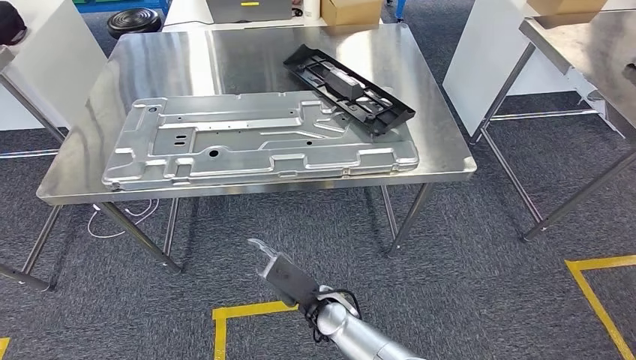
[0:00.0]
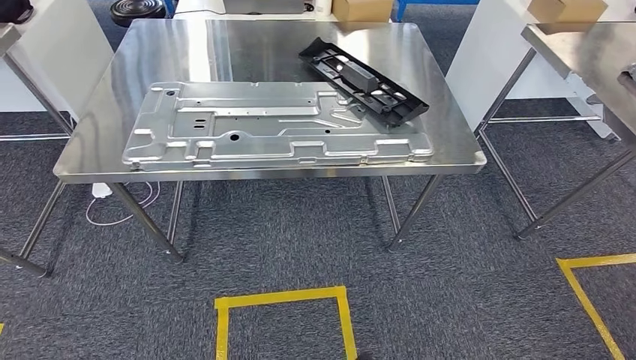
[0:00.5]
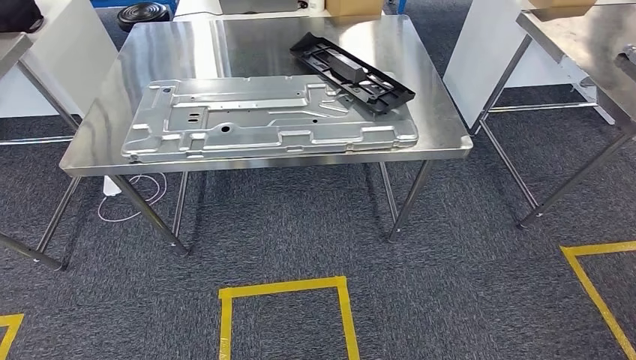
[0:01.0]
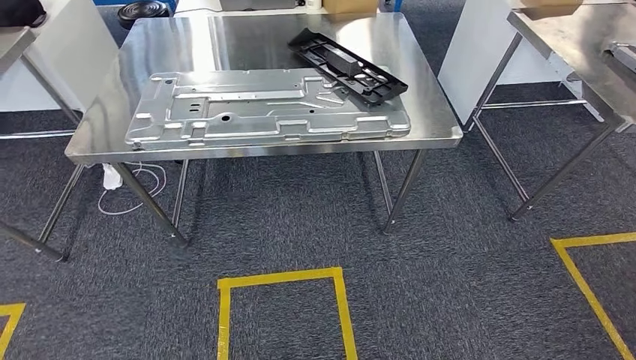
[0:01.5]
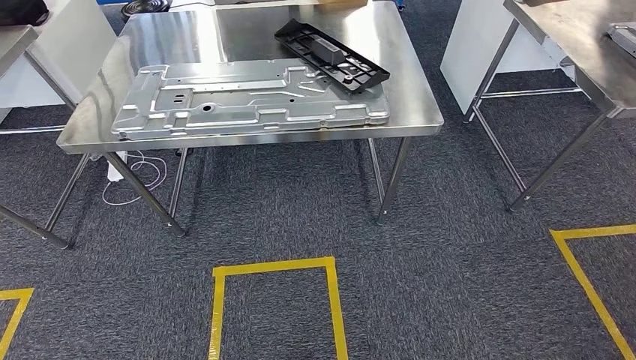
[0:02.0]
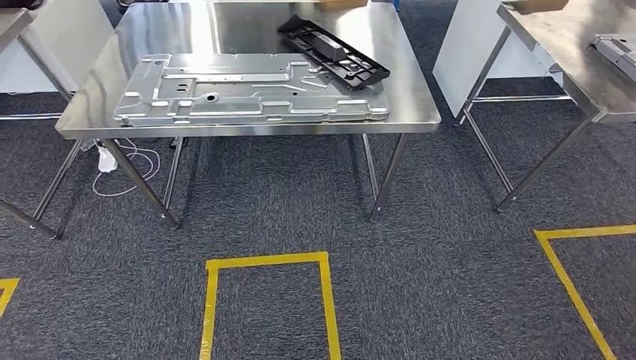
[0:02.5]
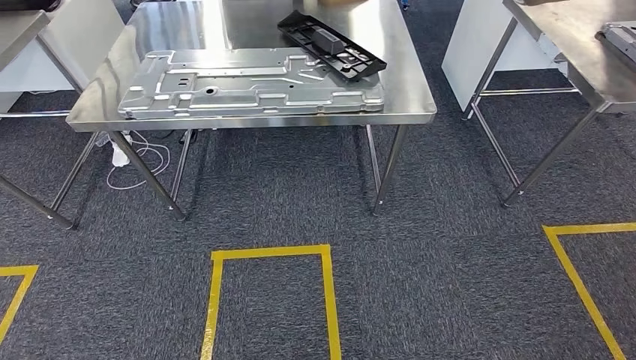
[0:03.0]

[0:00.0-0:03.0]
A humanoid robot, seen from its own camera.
Step, 0:00.0 to 0:03.0: Move to the initial position of the shelf.

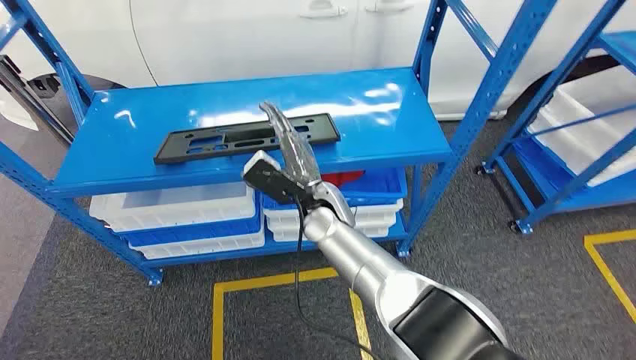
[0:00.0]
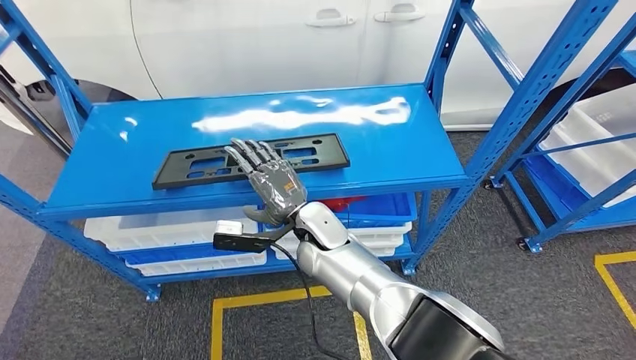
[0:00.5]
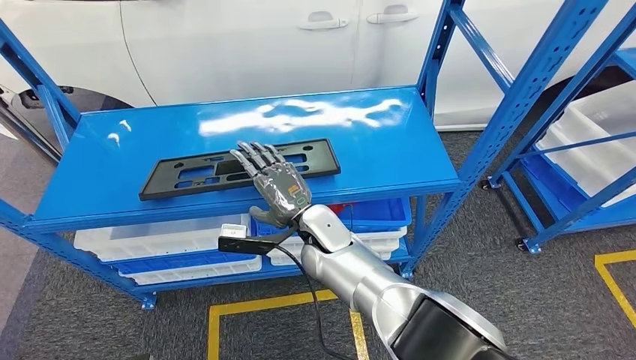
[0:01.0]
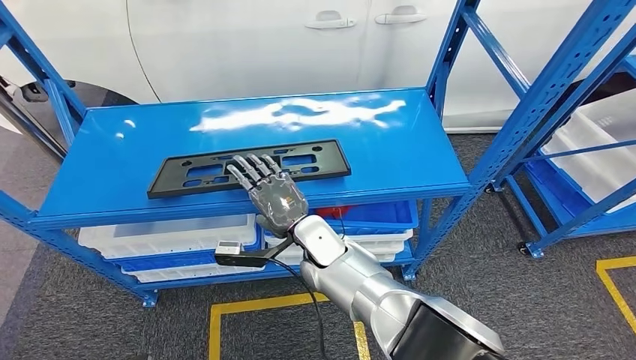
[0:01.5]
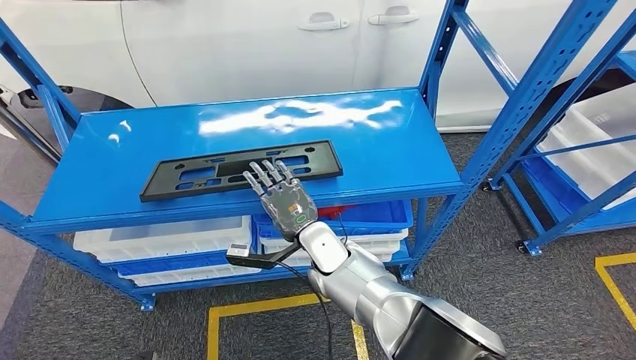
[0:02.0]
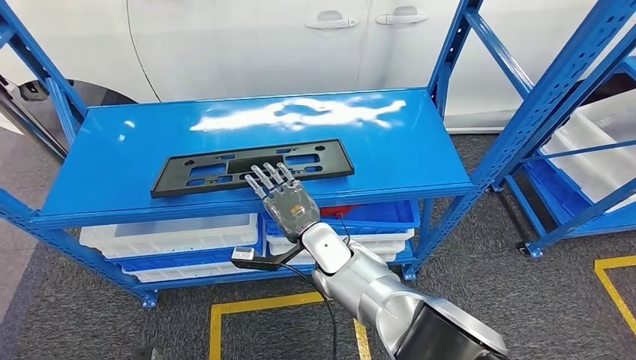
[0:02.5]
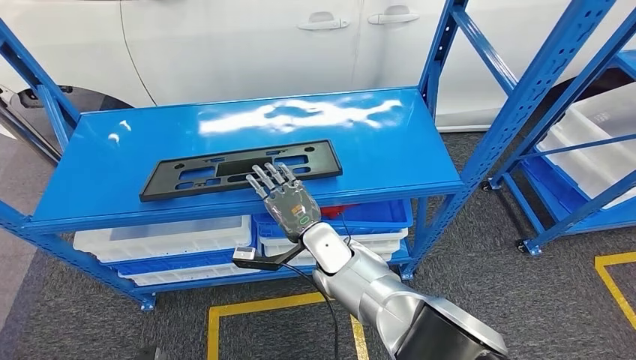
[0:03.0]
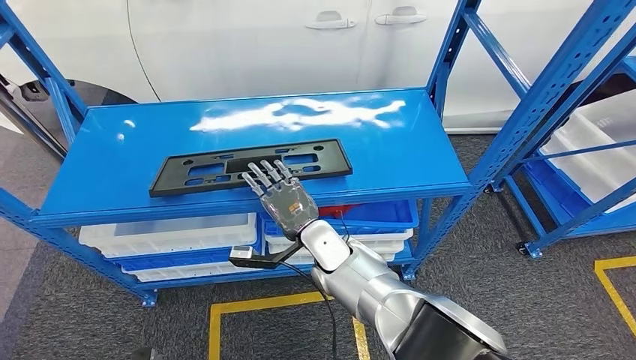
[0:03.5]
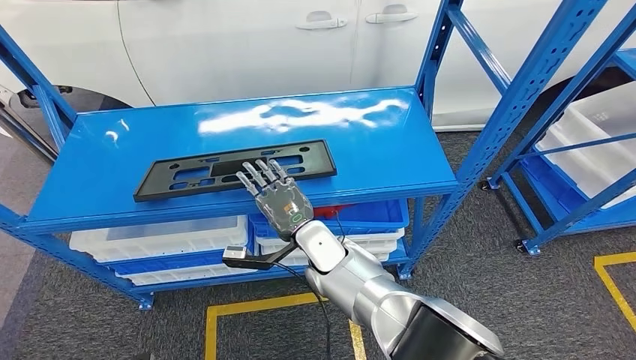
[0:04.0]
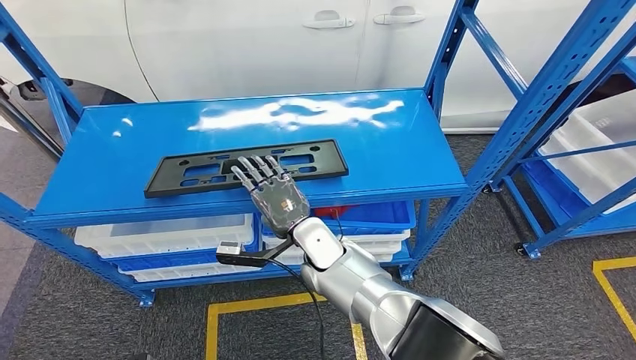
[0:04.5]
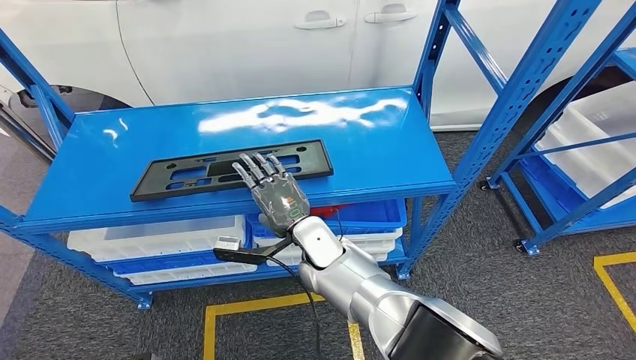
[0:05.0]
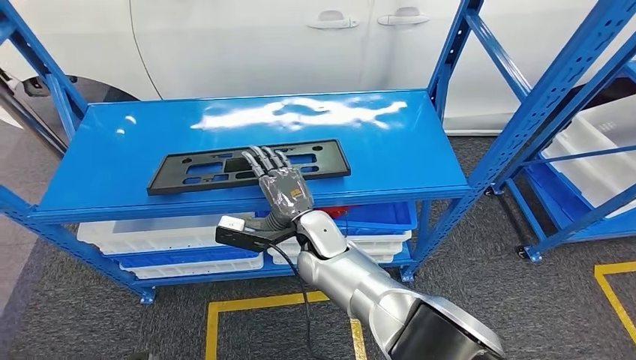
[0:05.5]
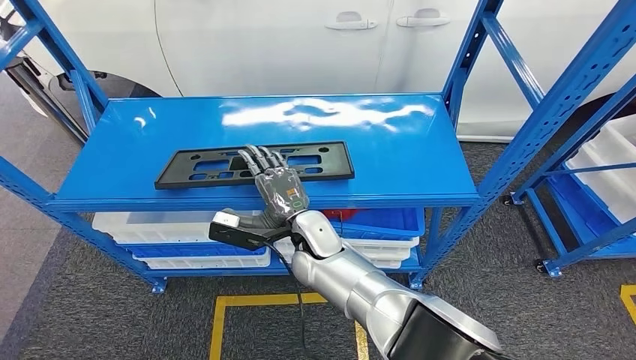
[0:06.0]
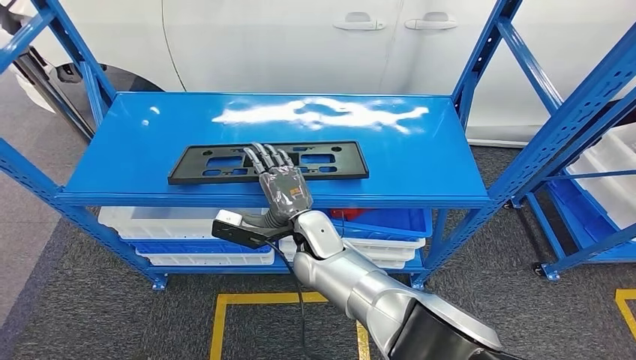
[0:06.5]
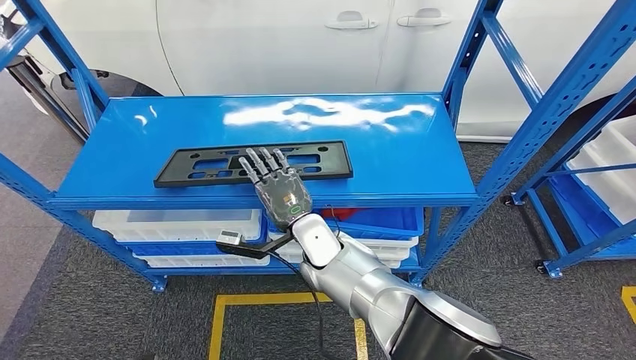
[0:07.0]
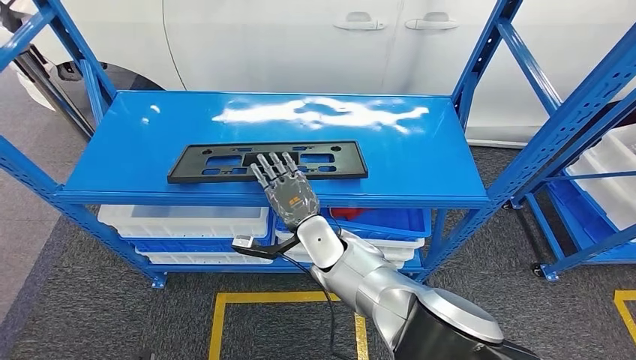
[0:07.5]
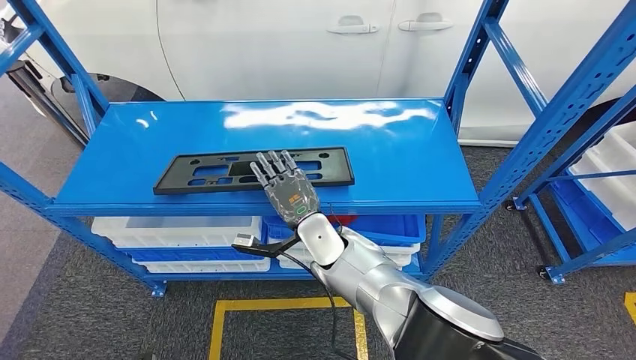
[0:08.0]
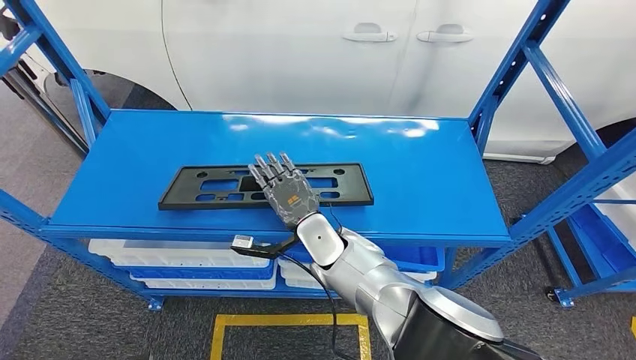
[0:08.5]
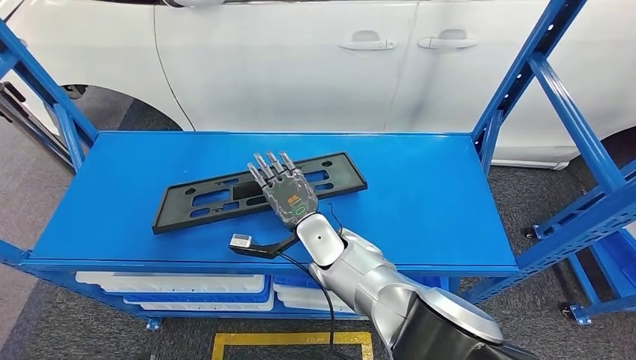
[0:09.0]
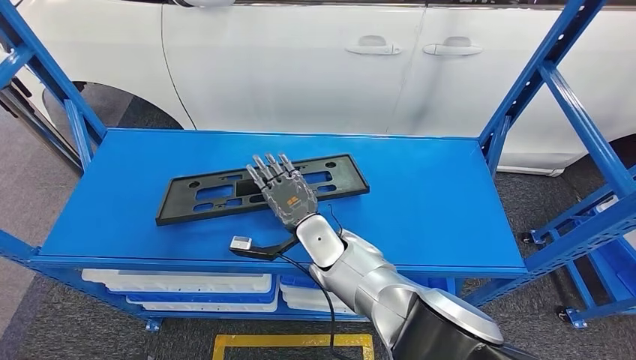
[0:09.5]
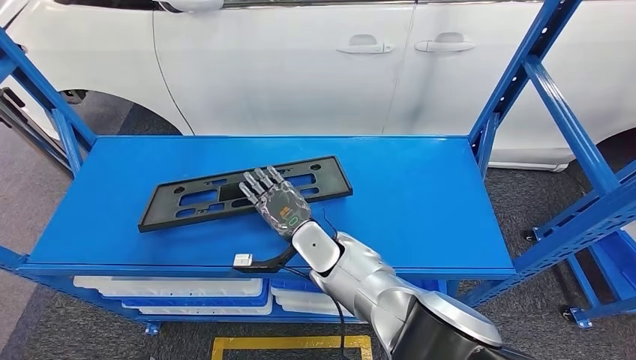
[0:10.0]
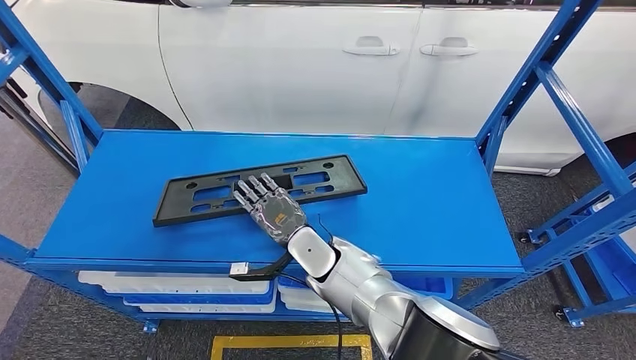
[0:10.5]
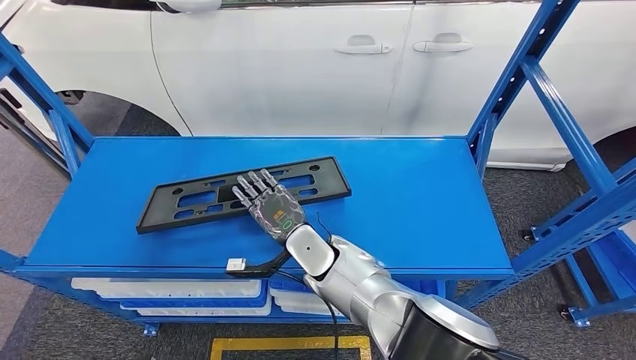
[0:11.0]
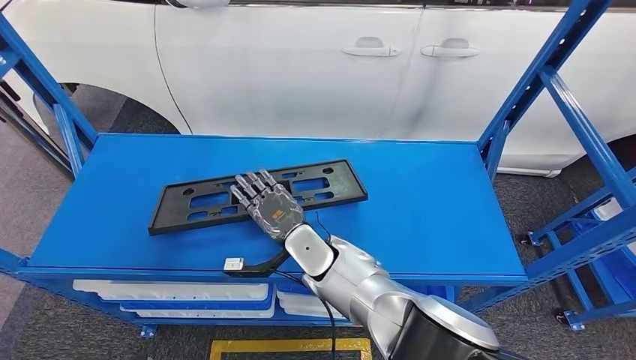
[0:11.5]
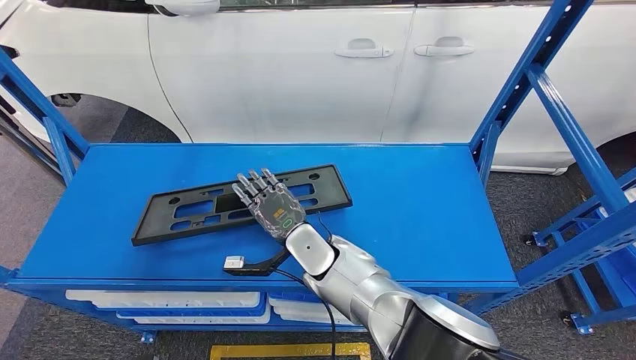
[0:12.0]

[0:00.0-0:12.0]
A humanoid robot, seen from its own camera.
0:02.0 to 0:04.0: Both hands stay put.

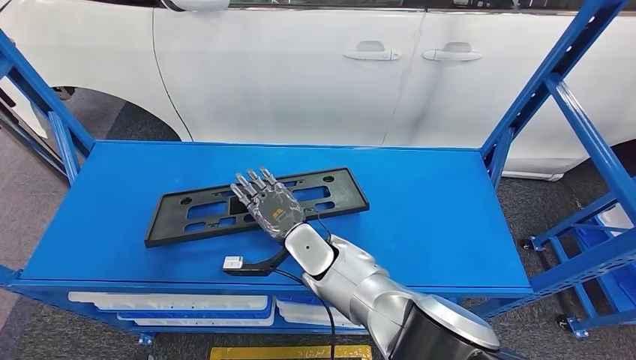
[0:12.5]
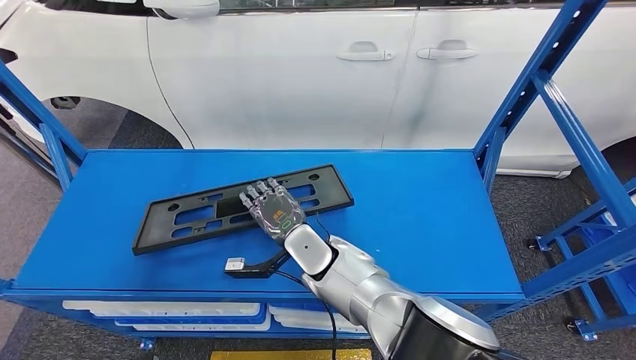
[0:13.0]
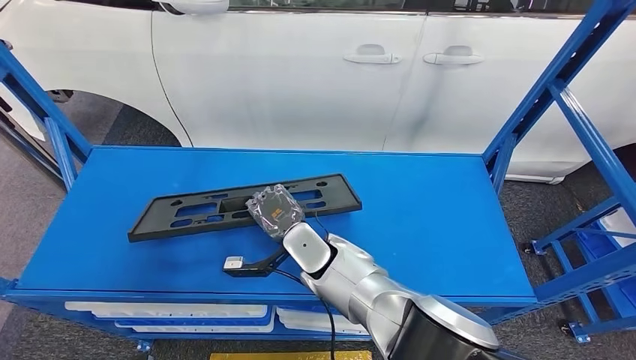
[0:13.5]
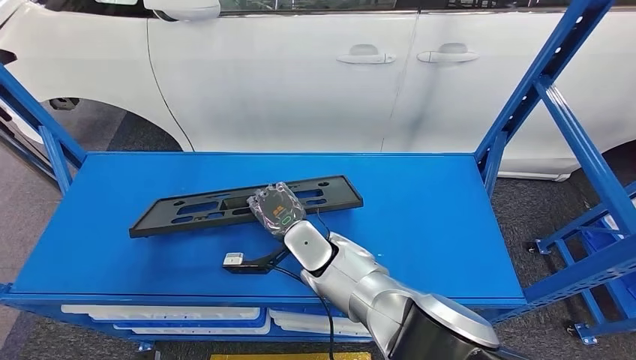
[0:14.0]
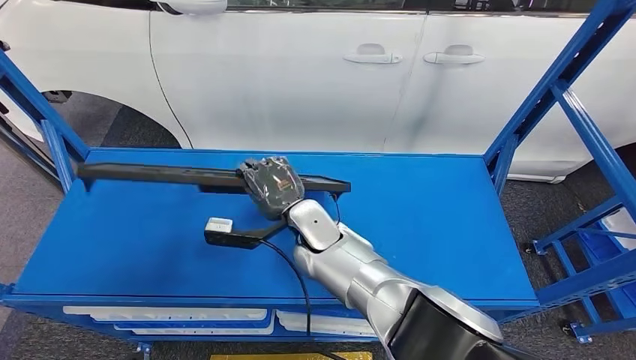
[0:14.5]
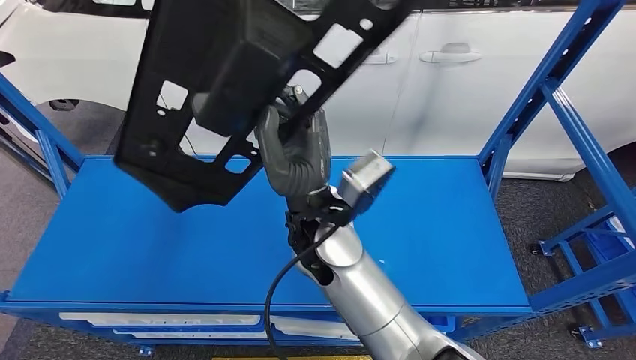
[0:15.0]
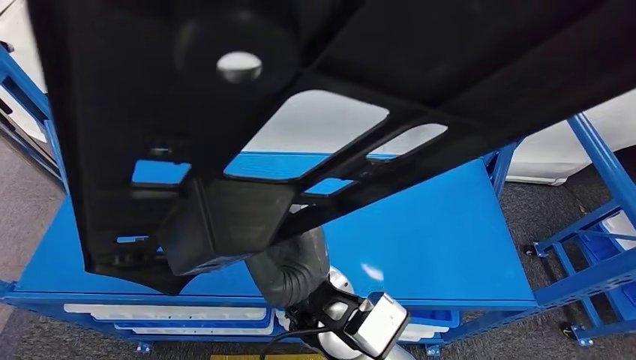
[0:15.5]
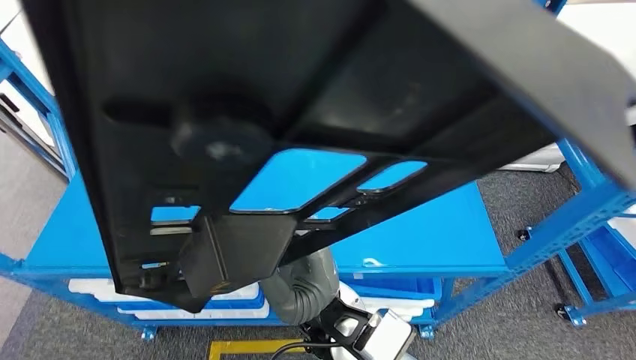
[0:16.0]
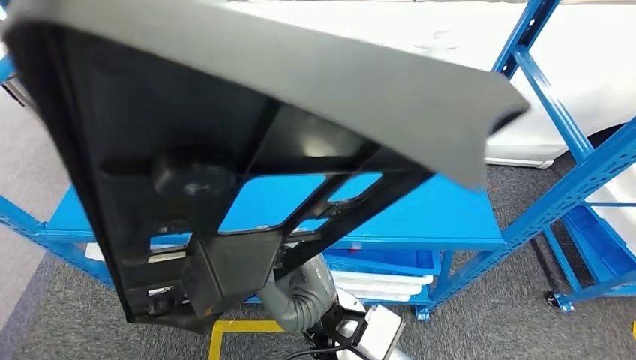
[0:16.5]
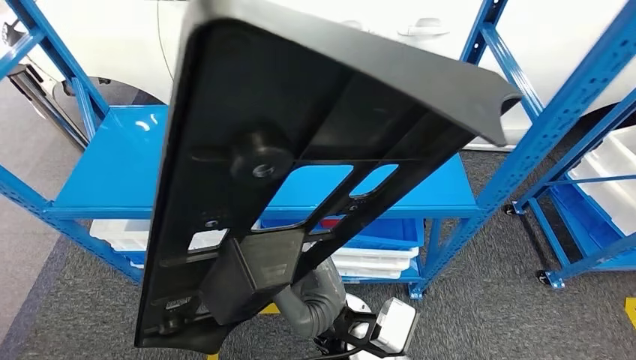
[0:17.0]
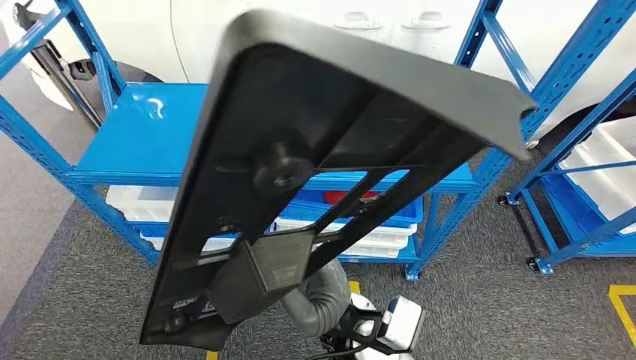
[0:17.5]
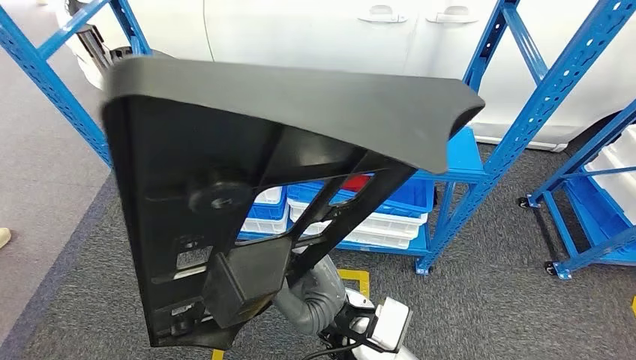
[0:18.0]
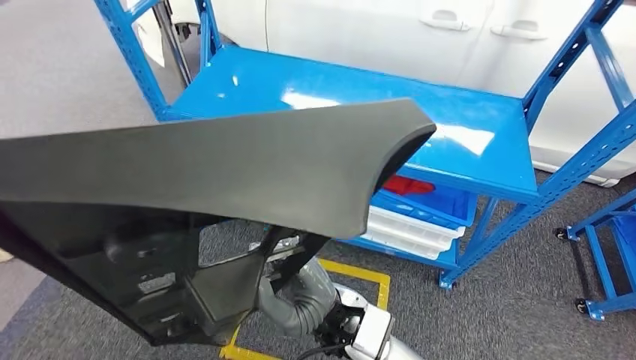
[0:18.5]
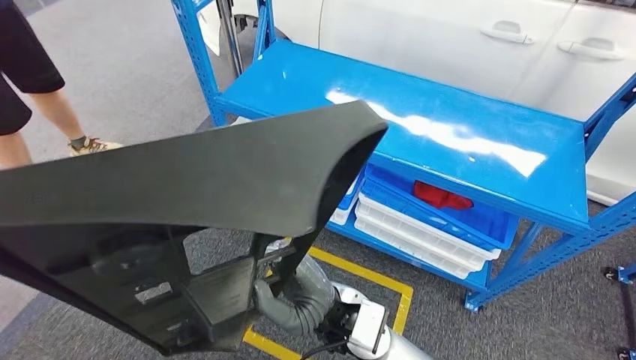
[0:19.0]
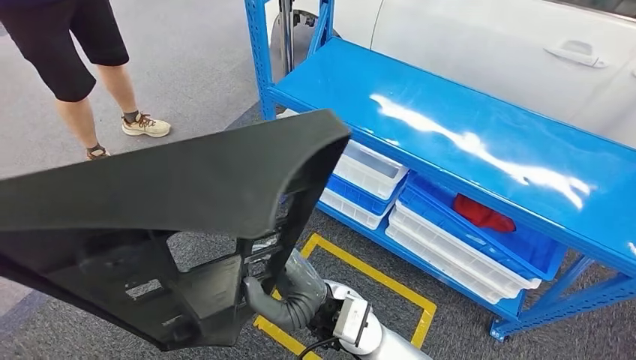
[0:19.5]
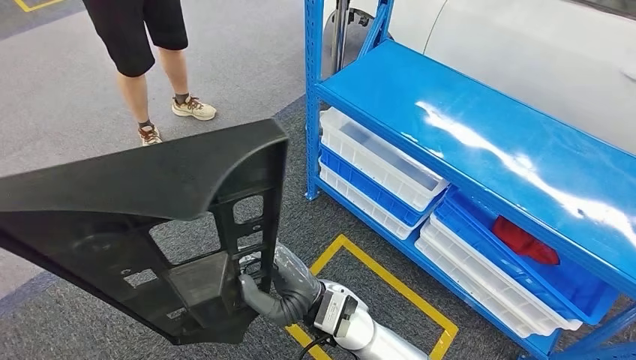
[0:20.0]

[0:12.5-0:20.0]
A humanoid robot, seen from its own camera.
Step, 0:12.5 to 0:15.0: Pick up the large material from the shelf.
